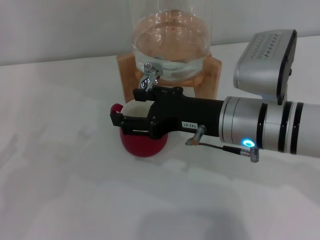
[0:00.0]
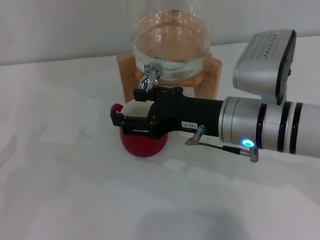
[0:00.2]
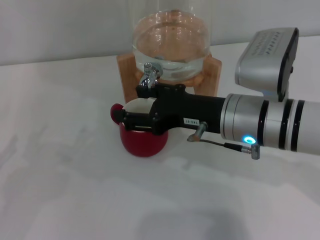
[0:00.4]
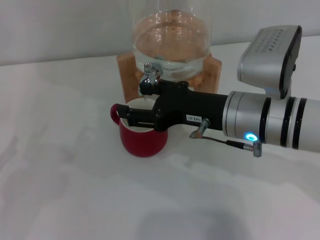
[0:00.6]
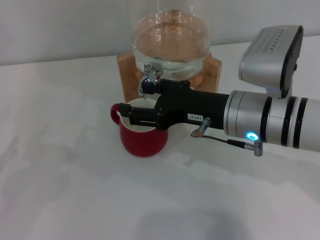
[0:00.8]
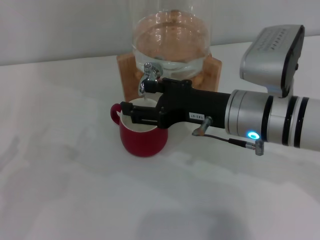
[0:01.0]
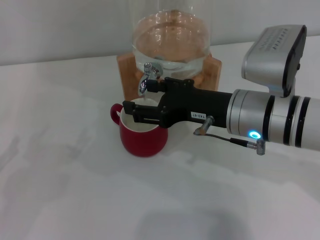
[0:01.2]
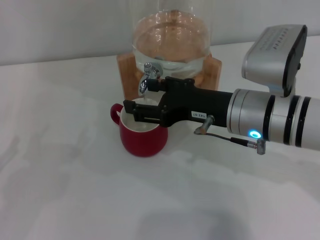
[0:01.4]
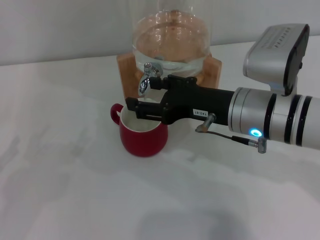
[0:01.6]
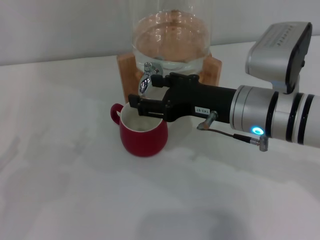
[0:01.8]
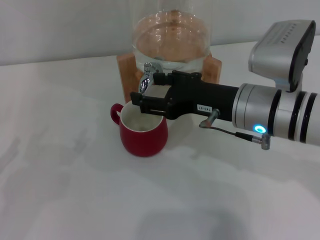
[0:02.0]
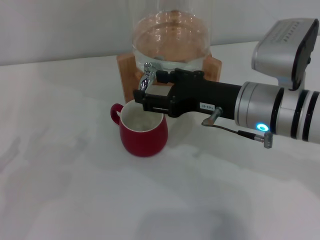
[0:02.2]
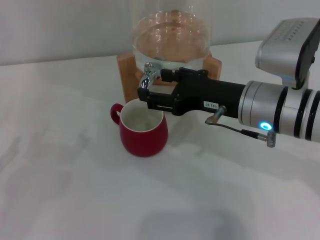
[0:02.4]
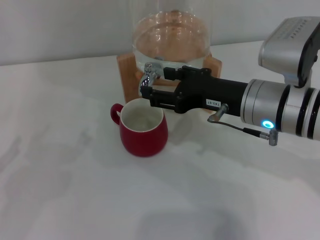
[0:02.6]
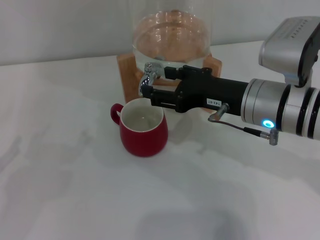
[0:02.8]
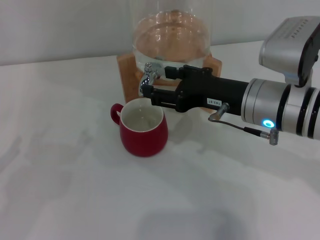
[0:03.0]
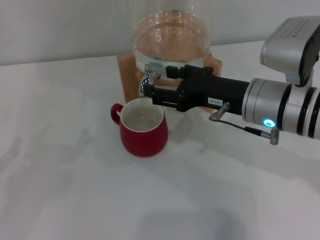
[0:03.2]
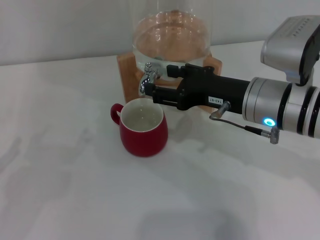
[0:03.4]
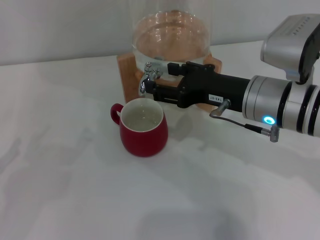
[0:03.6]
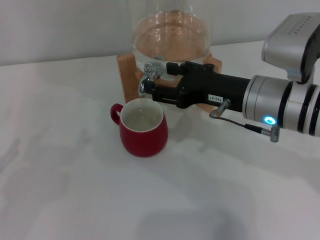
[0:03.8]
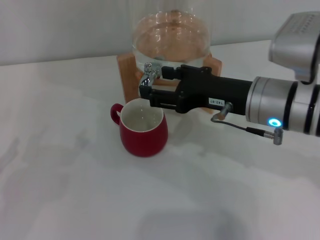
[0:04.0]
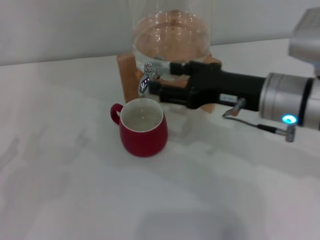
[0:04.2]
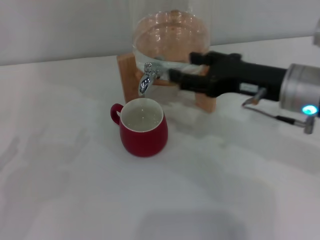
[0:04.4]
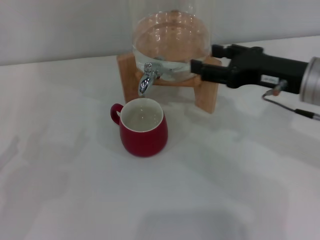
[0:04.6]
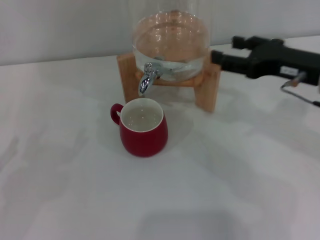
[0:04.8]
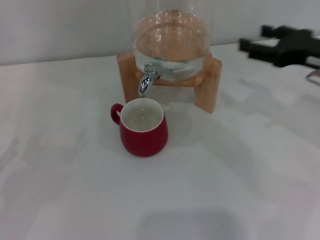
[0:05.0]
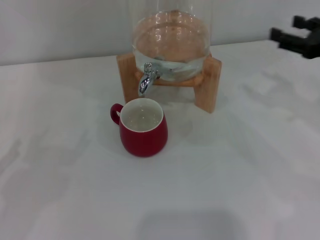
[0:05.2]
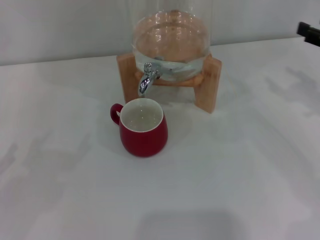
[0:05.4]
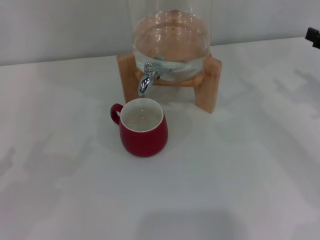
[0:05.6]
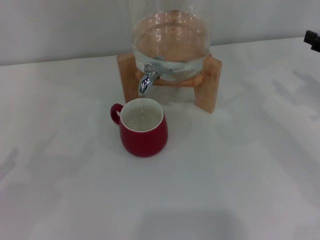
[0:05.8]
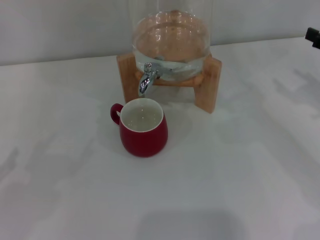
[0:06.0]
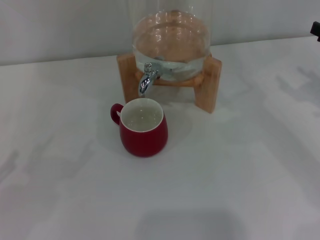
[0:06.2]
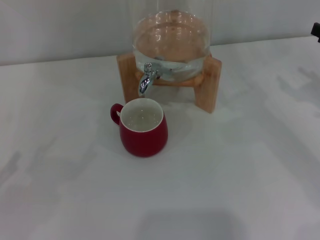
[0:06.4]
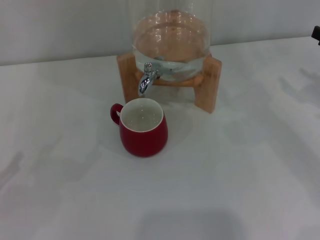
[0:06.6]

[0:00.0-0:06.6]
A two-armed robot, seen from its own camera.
Task of the whole recording: the left gripper pick up the red cup and place it horizontally under the faucet, the right gripper turn on the faucet to fill the cup, and then turn off the faucet.
Step, 0:01.2 to 0:04.4: Close the dispenser valve with the right gripper.
0:00.0 to 0:03.2: The grippers move only a little.
0:03.2 to 0:05.0: The right gripper goes roughly 15 cm to the right.
0:05.0 to 0:06.6: The right gripper is displaced to the right by approximately 10 cm.

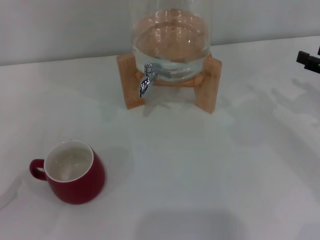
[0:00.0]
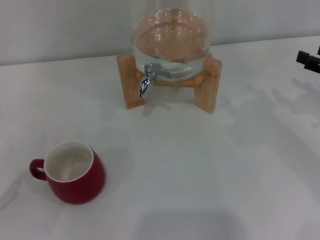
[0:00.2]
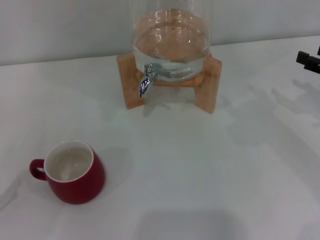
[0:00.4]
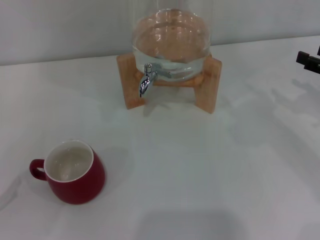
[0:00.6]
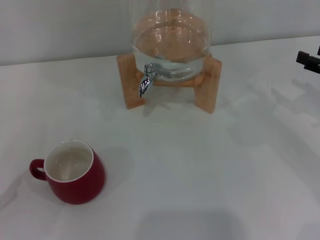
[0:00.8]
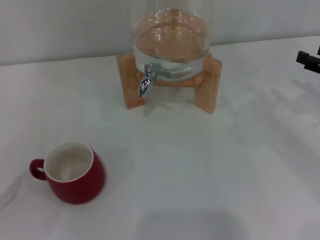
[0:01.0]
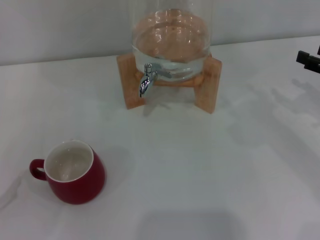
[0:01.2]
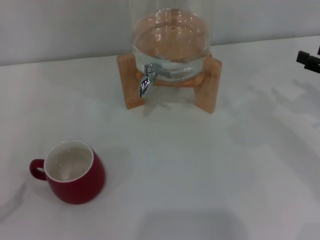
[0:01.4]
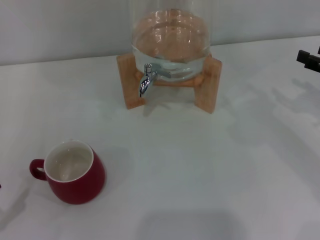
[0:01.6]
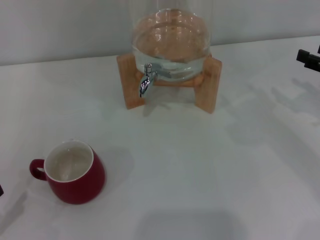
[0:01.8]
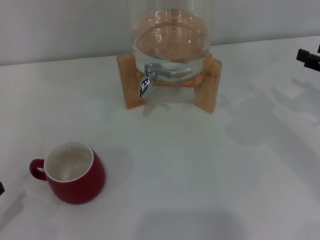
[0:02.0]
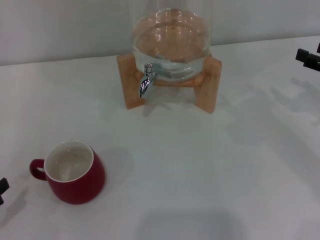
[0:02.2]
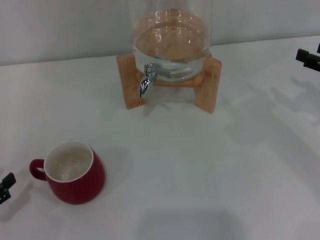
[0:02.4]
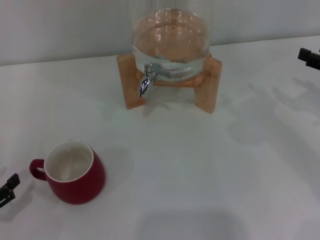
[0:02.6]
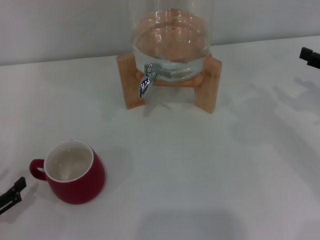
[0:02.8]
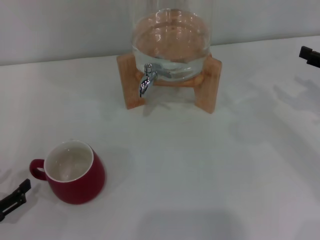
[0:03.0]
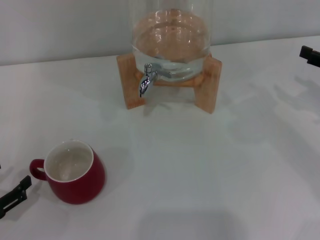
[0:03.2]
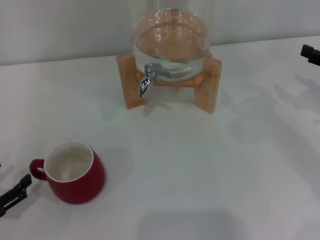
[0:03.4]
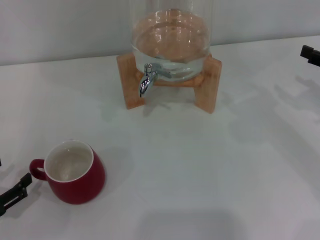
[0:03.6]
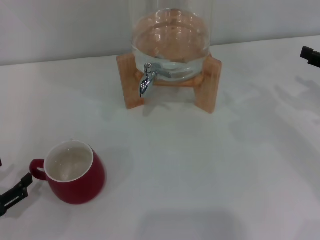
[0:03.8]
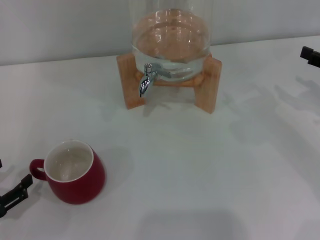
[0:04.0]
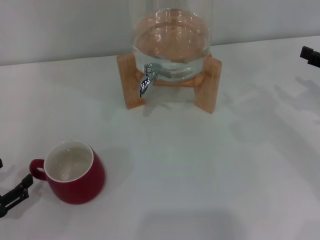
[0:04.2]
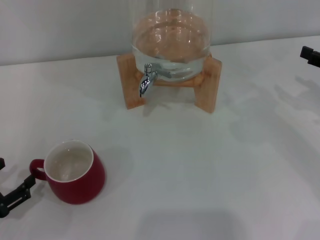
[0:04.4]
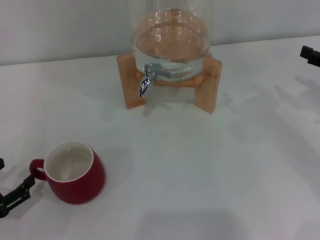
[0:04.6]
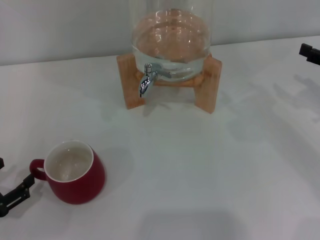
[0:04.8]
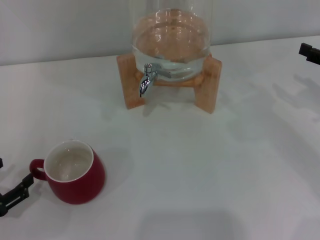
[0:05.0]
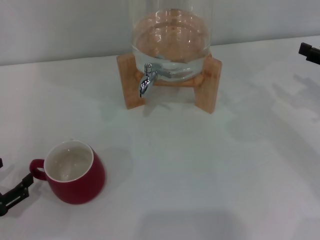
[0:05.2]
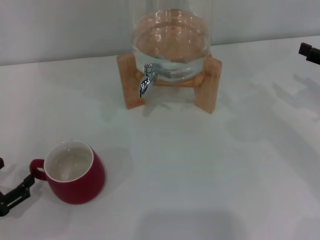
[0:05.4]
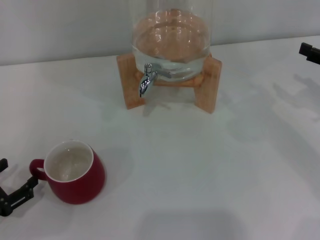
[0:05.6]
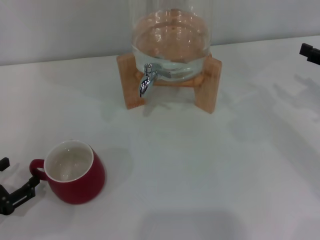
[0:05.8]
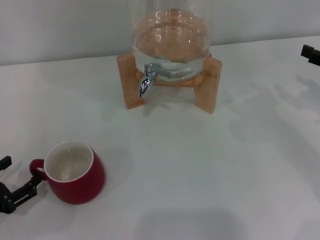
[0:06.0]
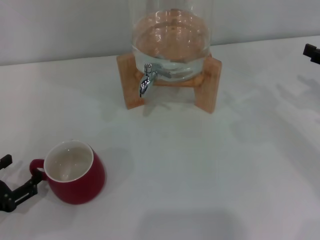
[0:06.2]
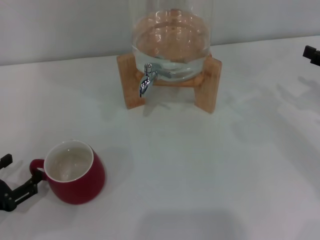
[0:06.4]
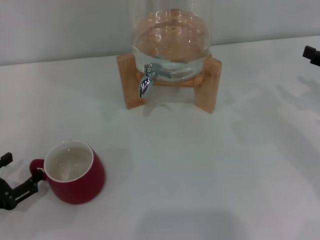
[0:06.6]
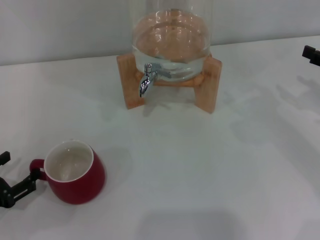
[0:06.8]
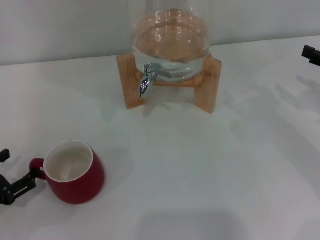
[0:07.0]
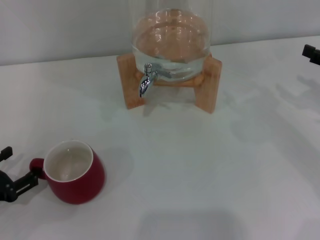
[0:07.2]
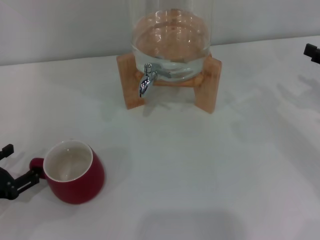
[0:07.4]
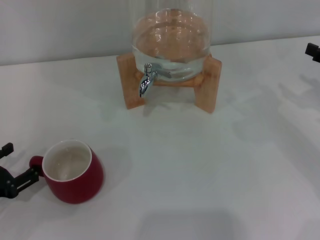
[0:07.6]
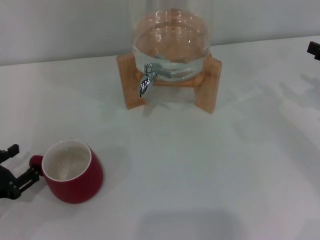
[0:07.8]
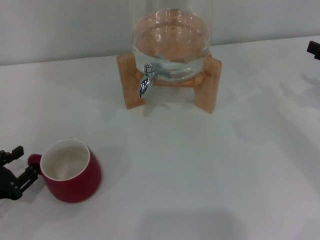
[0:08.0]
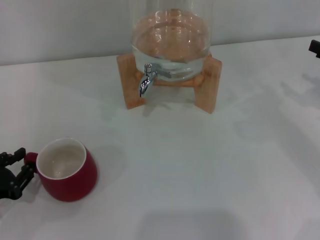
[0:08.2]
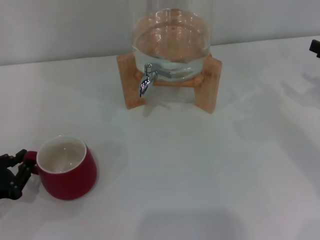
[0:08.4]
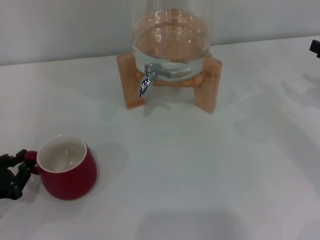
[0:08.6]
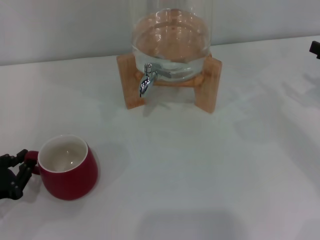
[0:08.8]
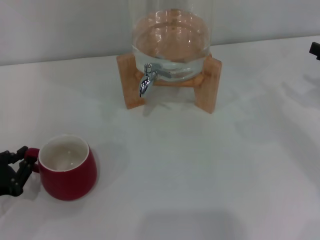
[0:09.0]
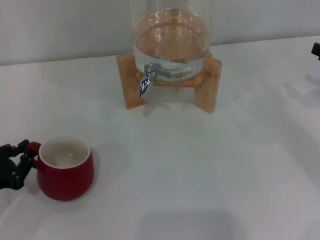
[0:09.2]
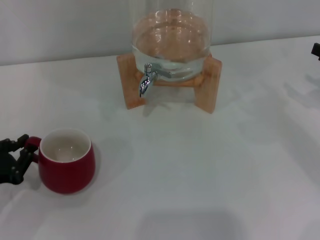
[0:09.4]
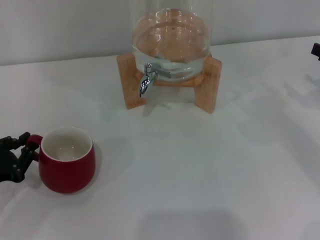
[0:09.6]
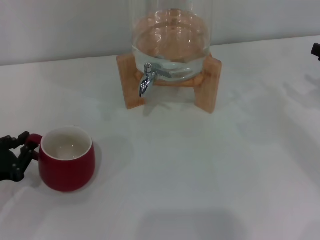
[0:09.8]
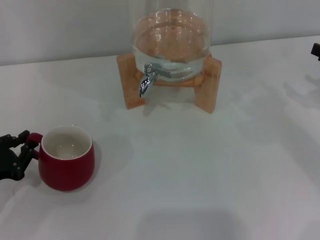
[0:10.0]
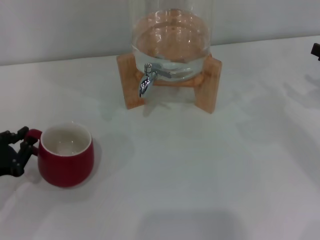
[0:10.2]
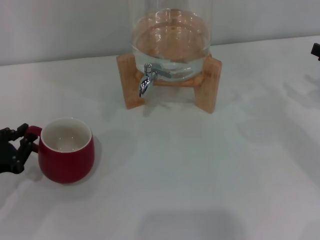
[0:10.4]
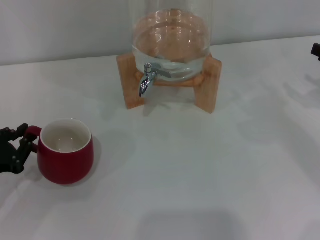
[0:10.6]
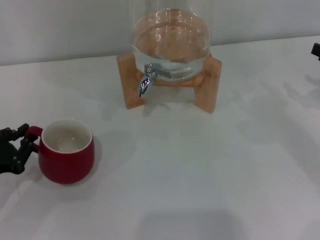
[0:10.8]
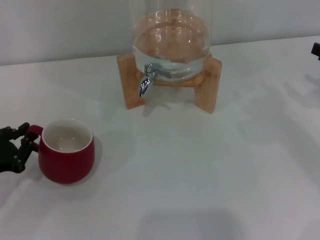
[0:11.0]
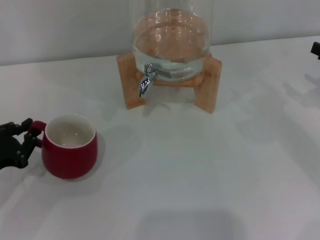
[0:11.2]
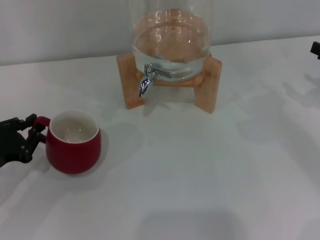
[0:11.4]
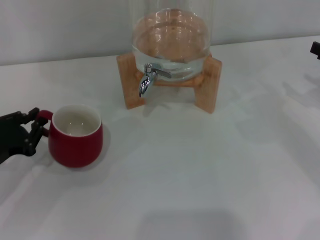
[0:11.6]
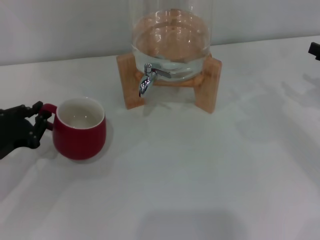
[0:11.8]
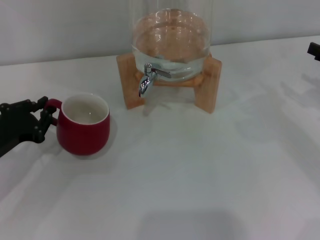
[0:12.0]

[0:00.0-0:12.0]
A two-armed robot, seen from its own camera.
Task of the whole recording: the left gripper pick up the red cup and place it horizontally under the faucet, the right gripper turn on the faucet to fill the cup, and then turn off the faucet.
0:01.6 to 0:03.0: The left gripper moves some 5 cm.
0:03.0 to 0:04.4: Both grippers stay about where they are.
0:04.4 to 0:06.0: Both grippers stay put.
0:06.0 to 0:07.6: There are only small adjustments of the grippers.
0:07.6 to 0:09.0: The left gripper closes up.
0:09.0 to 0:10.4: There are only small adjustments of the grippers.
0:10.4 to 0:12.0: The left gripper changes place by roughly 5 cm.

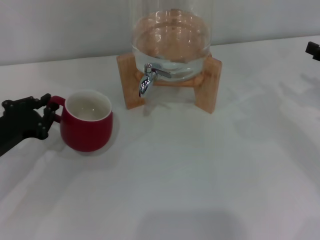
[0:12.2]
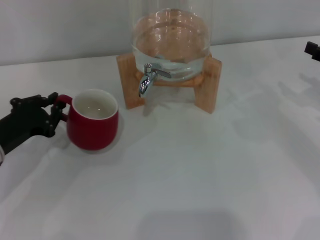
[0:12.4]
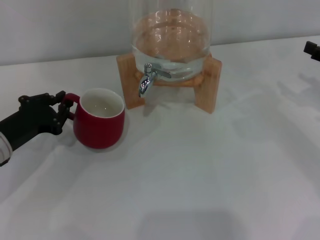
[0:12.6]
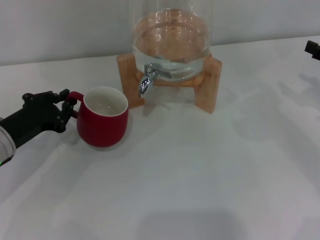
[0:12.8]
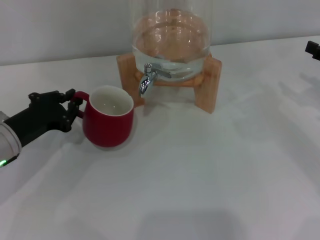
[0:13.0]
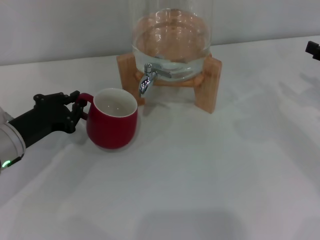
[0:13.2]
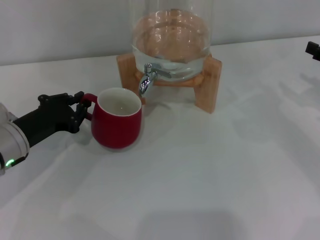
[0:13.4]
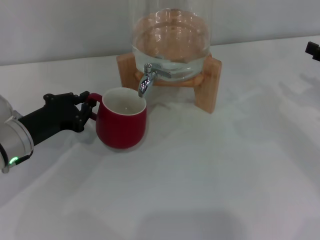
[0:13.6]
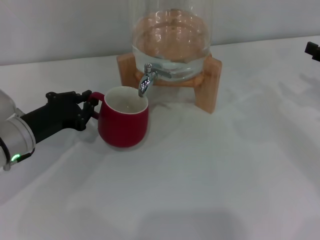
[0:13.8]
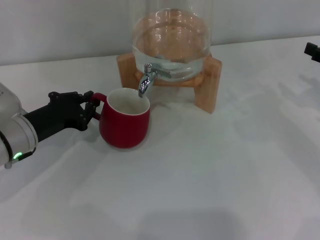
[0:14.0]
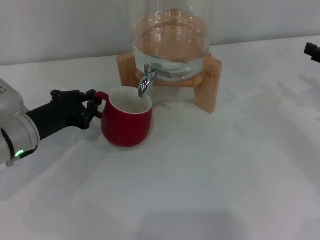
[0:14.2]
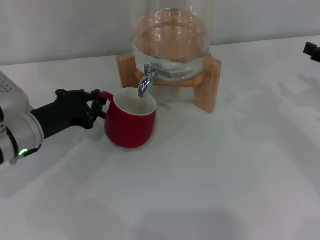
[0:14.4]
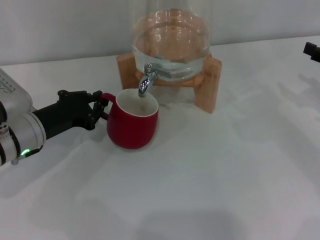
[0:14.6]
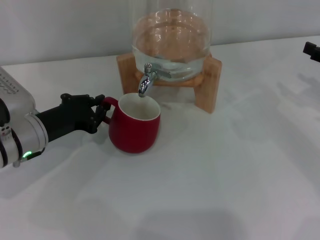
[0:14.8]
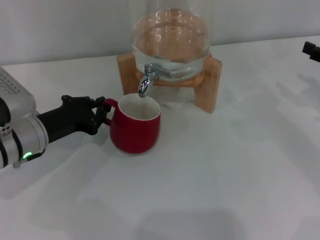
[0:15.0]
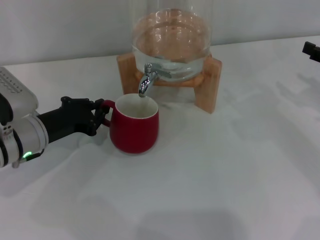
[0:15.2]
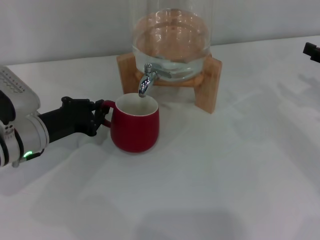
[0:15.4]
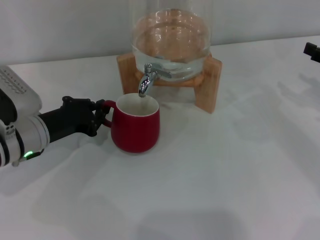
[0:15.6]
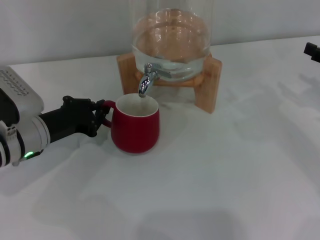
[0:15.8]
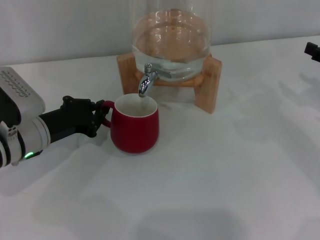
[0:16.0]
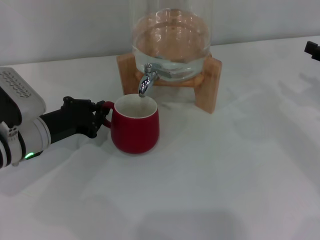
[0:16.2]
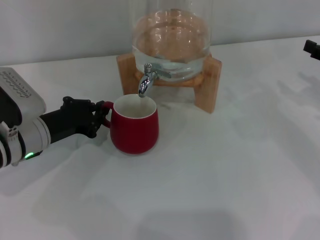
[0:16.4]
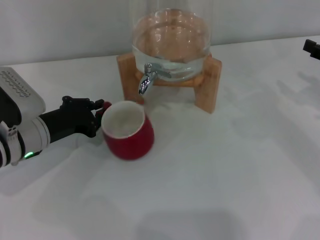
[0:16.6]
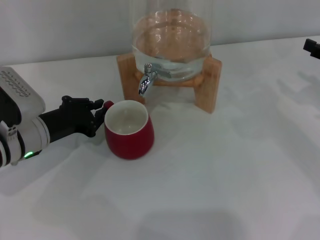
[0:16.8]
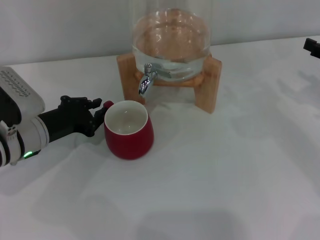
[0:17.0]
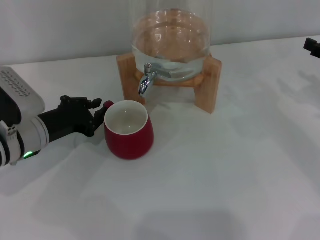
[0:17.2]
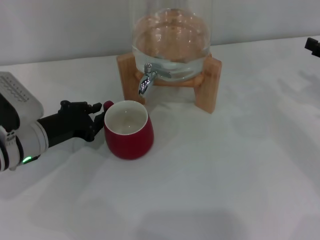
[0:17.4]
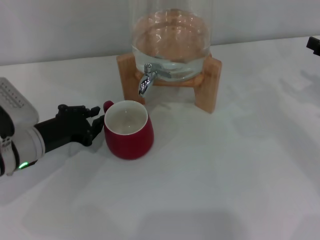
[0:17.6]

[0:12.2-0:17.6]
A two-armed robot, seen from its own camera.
Task of the whole recording: the left gripper pick up the red cup and place it horizontally under the faucet, the right gripper turn on the faucet to fill the cup, and then turn off the faucet.
Step, 0:12.2 to 0:17.6: Move the cup beneath the water dispenser nozzle with the left gripper.
0:12.2 to 0:13.6: The left gripper moves approximately 5 cm.
0:13.6 to 0:17.6: There are only small adjustments of the grippers.
